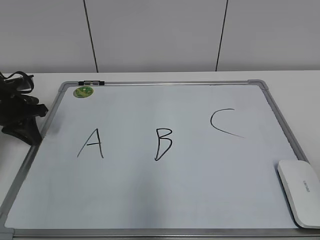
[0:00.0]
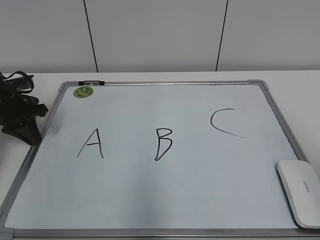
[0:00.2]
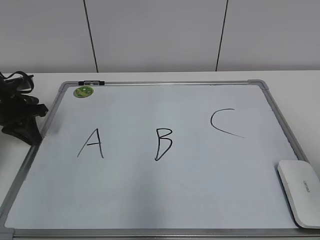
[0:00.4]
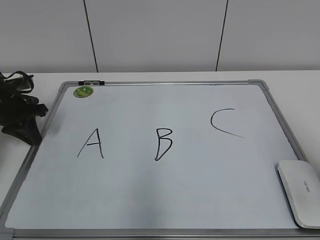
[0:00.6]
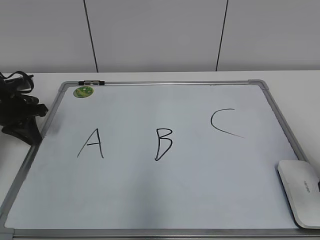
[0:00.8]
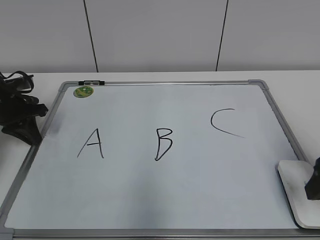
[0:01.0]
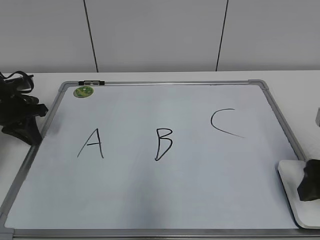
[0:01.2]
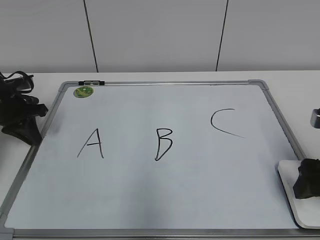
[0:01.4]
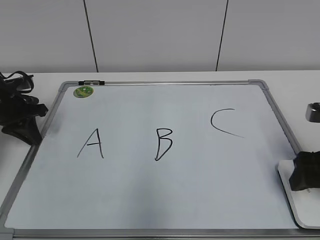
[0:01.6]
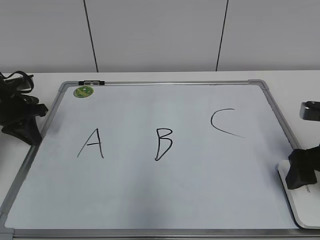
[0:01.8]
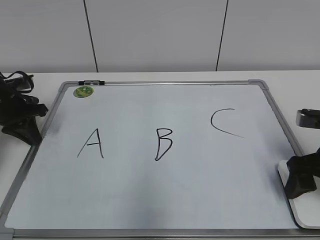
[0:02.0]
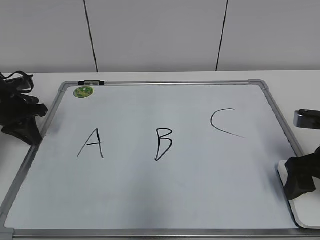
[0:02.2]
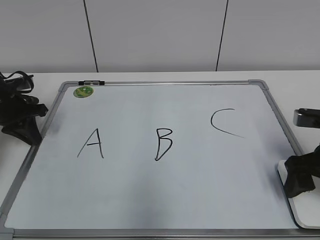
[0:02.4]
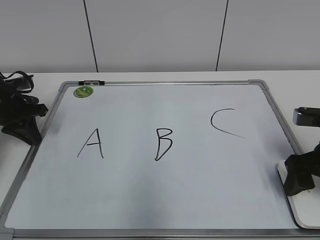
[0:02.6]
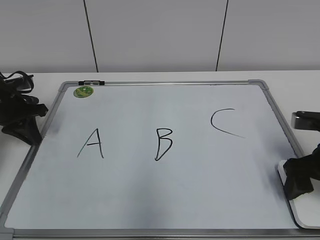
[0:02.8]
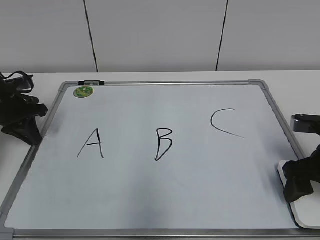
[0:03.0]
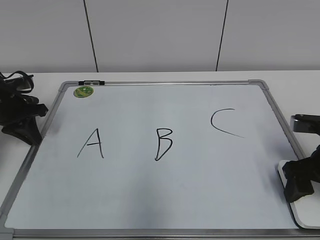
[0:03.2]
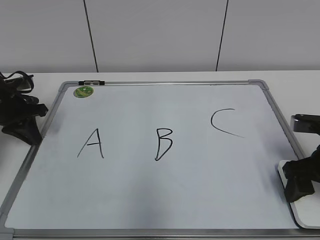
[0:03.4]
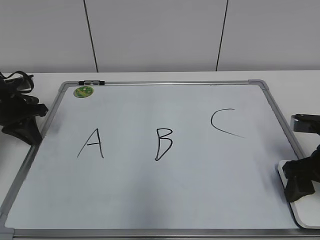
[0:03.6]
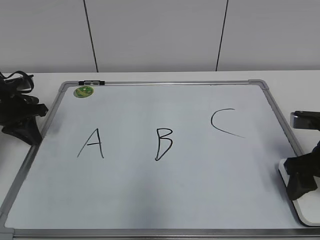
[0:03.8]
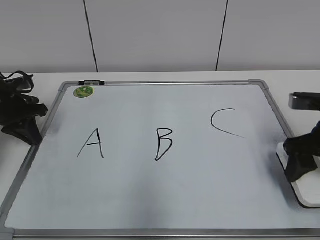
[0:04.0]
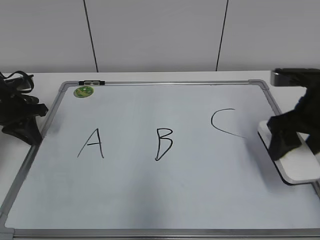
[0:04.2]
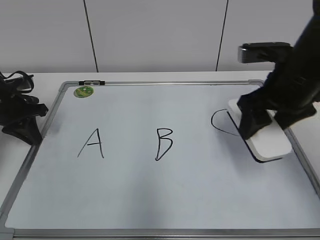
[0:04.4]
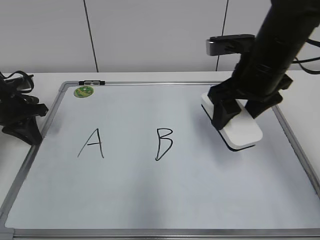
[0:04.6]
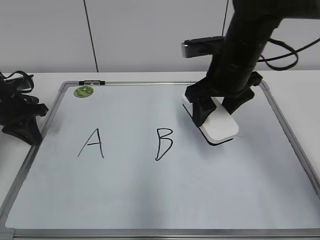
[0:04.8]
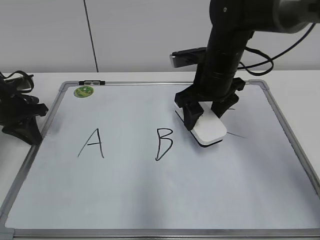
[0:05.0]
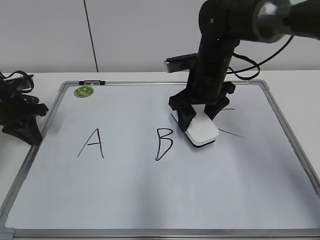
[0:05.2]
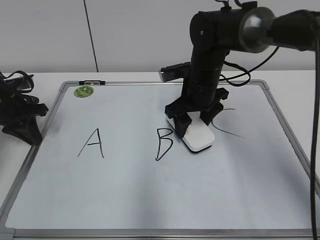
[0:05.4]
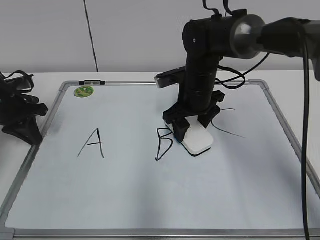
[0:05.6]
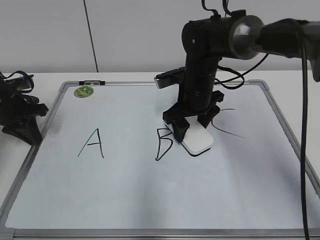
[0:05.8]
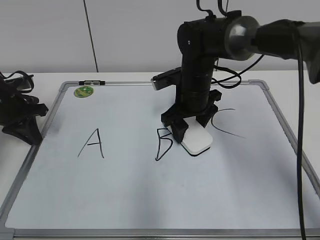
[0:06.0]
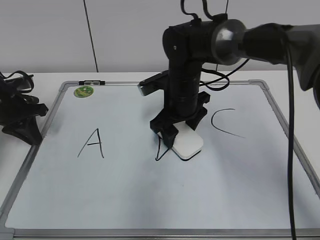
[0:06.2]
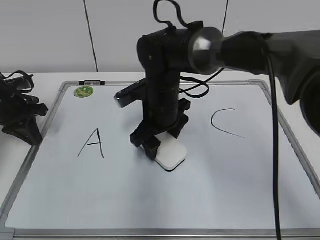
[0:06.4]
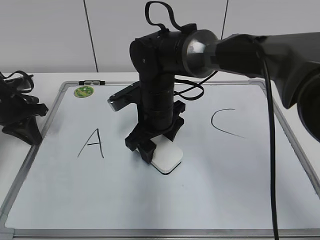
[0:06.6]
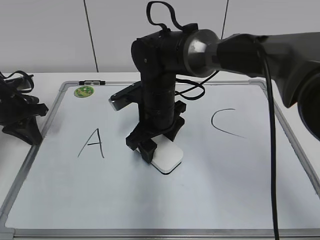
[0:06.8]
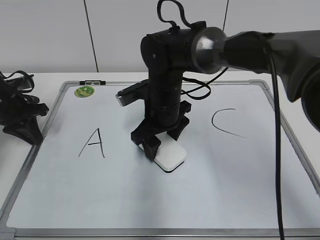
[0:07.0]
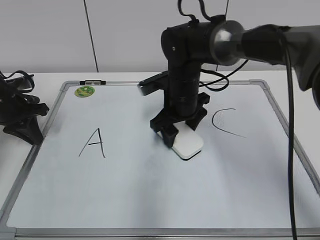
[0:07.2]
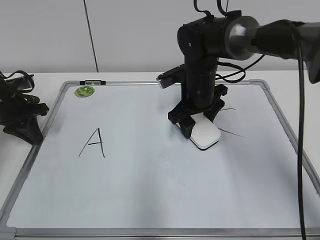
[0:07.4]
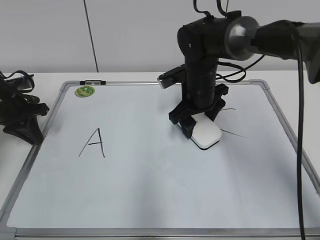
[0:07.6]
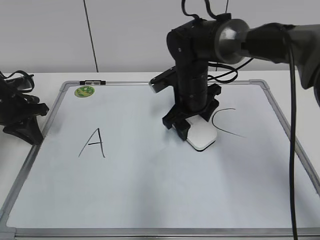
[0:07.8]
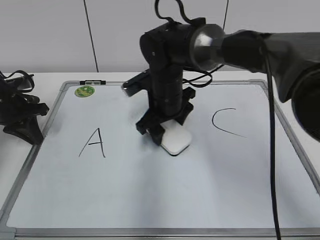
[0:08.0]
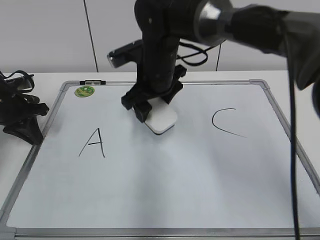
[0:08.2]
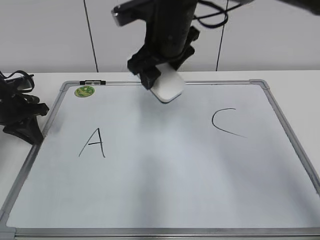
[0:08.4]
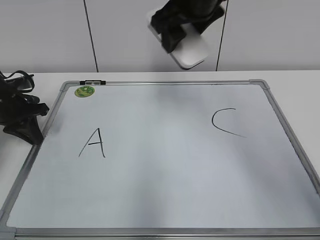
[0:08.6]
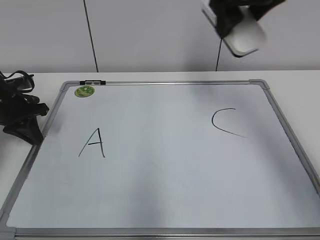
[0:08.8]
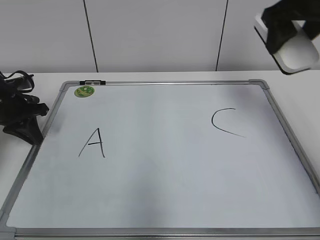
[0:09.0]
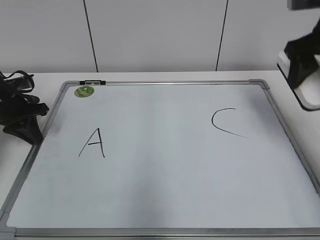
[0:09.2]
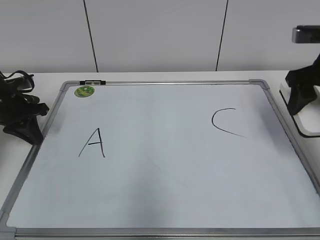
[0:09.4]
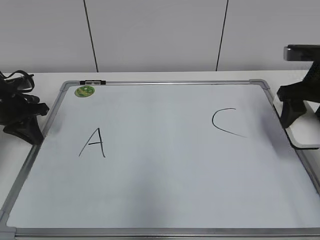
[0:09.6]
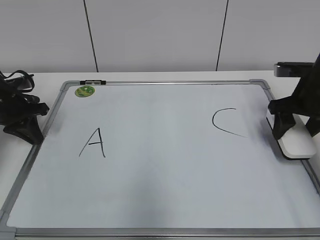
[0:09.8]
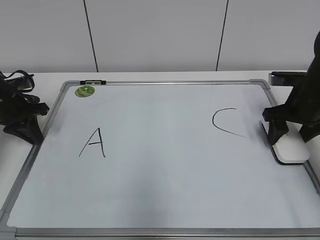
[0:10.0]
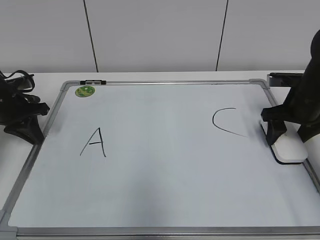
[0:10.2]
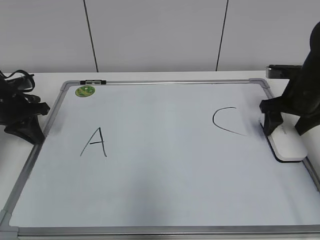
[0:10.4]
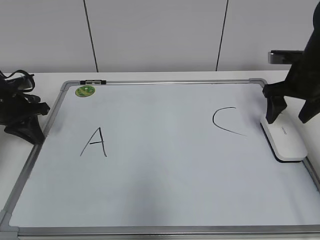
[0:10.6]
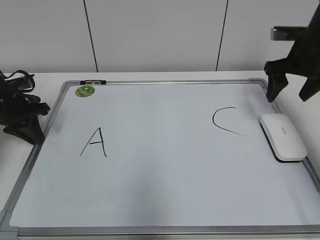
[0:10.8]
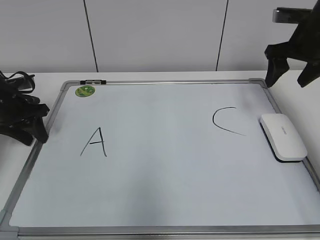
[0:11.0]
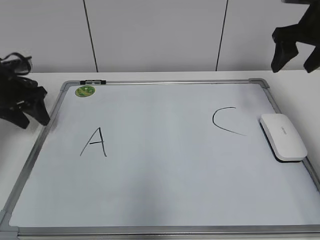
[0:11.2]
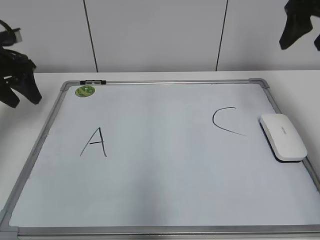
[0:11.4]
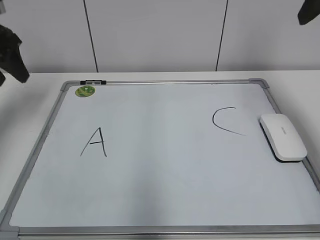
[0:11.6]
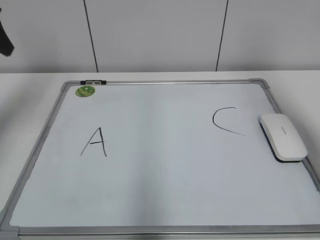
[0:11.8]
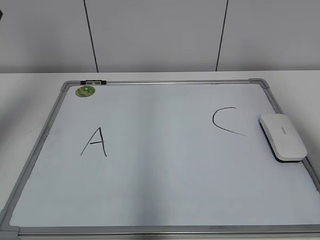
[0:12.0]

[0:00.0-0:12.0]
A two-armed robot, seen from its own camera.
Task of the whole recording: pick up the eraser on the blackboard and erase the letter "B".
Step, 0:00.0 to 0:03.4: Grab the eraser with your right hand.
Step, 0:03.6 to 0:07.8: Erase the letter B with your right hand.
Step, 0:08.0 to 0:10.4: Put down the eraser with your right hand.
0:00.0 to 0:01.6: The right gripper is displaced forward and downward by approximately 25 cm, and opens.
0:01.6 to 0:03.0: The right gripper closes its fingers.
0:03.0 to 0:04.4: The right gripper travels upward, to the left and forward by about 15 cm, and closes up.
0:04.4 to 0:06.0: The right gripper moves to the left, forward and downward, some 20 cm.
0:06.0 to 0:07.6: The right gripper goes to the left and returns, some 5 cm each way.
0:07.6 to 0:09.0: The right gripper travels upward and to the right by about 25 cm.
0:09.0 to 0:10.4: The right gripper goes roughly 20 cm downward, and opens up.
0:10.4 to 0:12.0: The right gripper goes roughly 30 cm upward and backward; the left gripper travels upward by approximately 30 cm, and opens up.

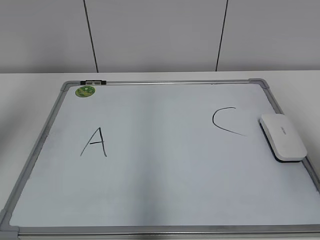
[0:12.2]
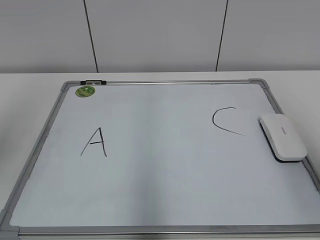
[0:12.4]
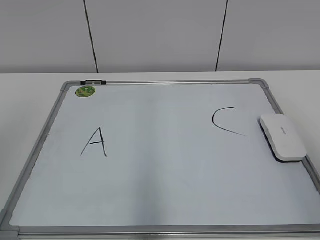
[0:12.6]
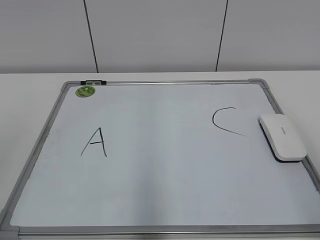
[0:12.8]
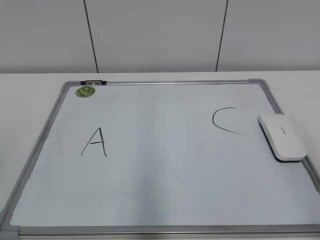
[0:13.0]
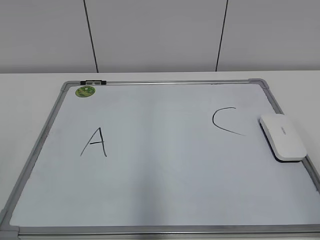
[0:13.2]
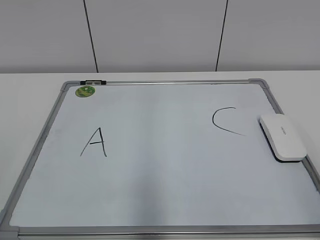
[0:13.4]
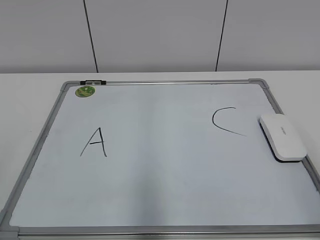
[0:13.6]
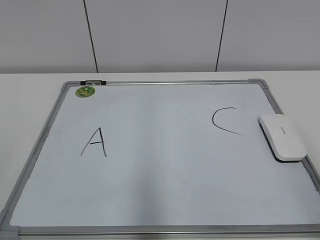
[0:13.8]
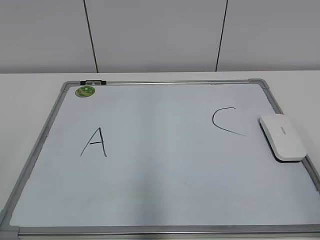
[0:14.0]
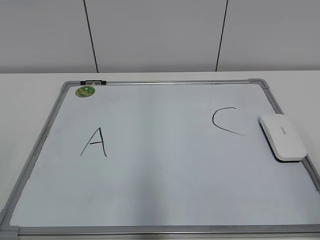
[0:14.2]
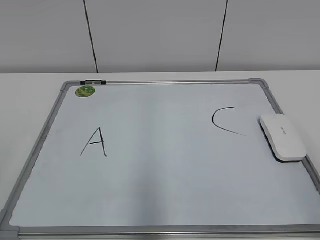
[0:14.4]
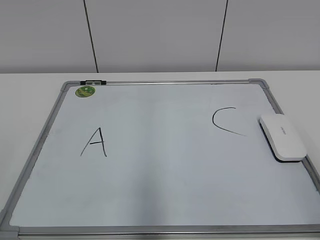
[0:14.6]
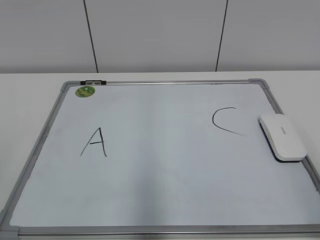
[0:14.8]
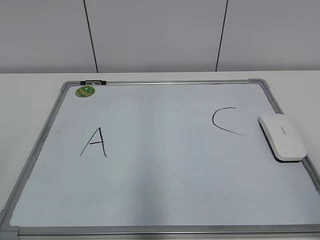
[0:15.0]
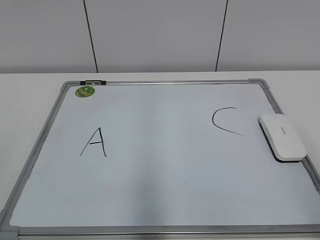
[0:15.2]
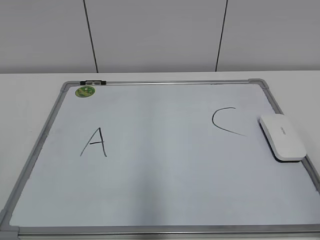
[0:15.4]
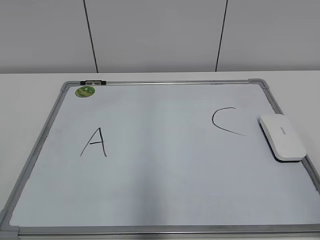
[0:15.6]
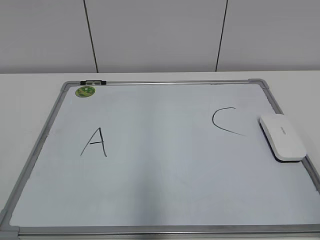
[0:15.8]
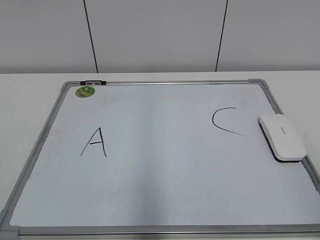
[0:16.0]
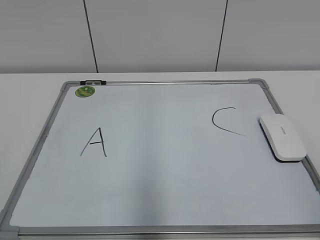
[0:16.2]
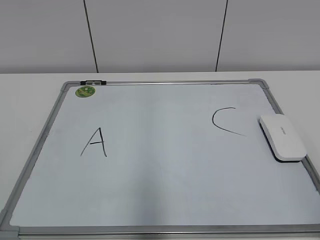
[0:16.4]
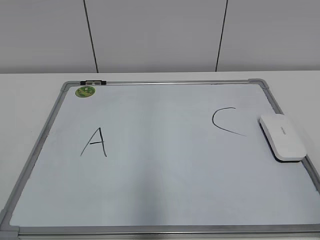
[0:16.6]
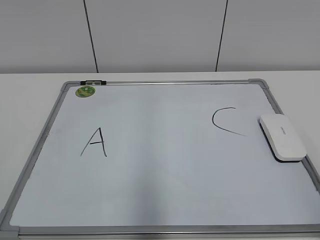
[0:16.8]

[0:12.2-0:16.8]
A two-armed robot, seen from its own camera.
Task of the whole recording: pick up the eraser on the blackboard and erase the letter "B".
0:12.2 to 0:13.8: The two grippers go about 20 cm backward and downward.

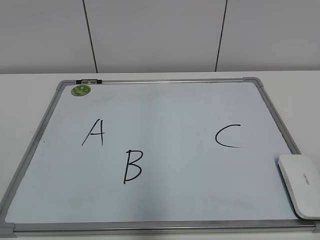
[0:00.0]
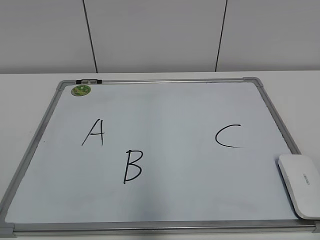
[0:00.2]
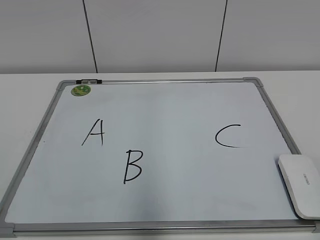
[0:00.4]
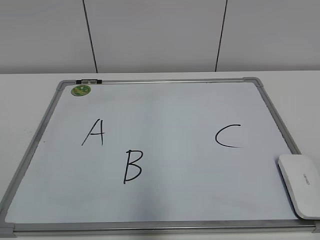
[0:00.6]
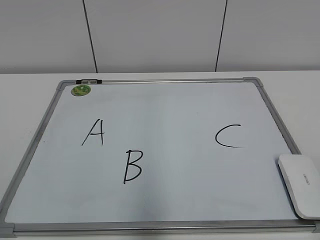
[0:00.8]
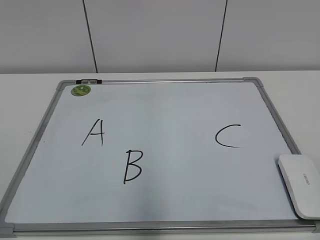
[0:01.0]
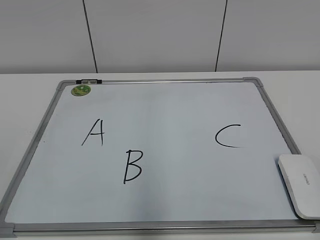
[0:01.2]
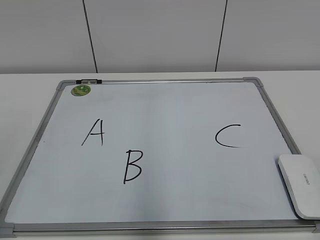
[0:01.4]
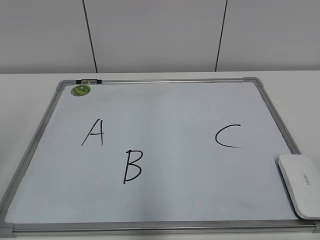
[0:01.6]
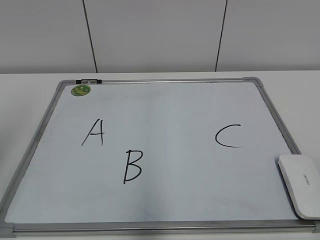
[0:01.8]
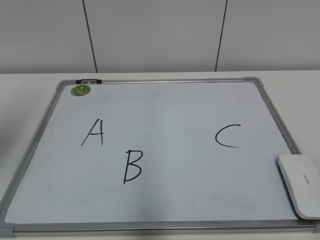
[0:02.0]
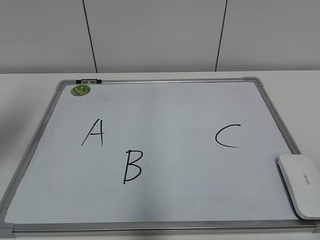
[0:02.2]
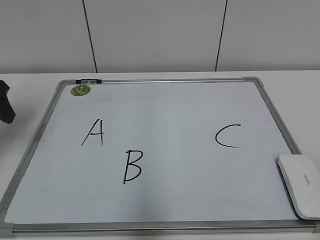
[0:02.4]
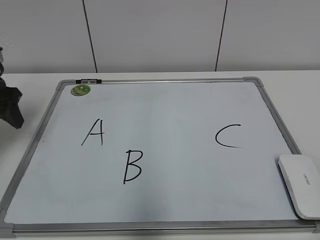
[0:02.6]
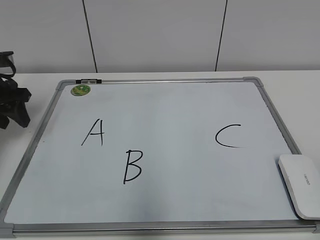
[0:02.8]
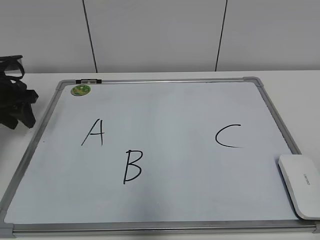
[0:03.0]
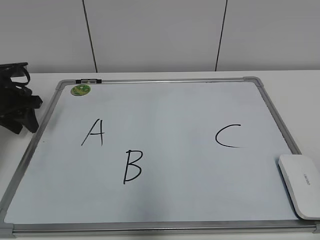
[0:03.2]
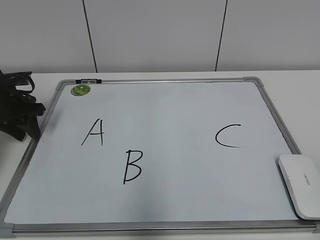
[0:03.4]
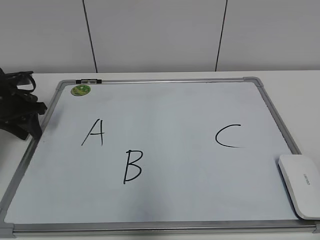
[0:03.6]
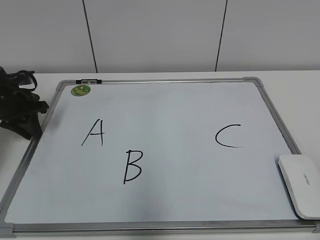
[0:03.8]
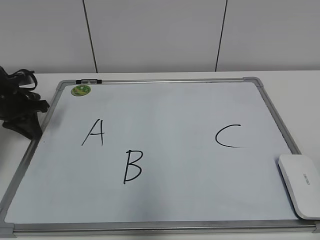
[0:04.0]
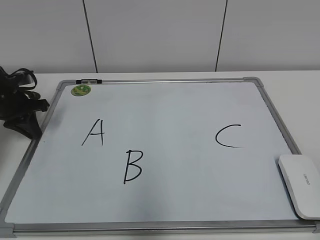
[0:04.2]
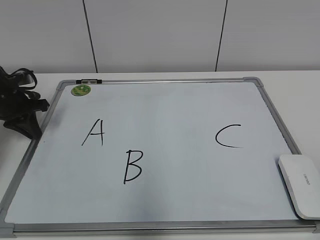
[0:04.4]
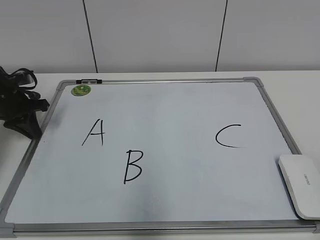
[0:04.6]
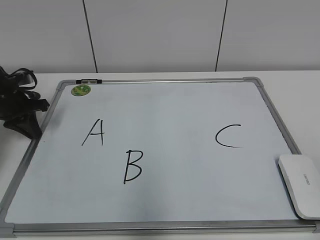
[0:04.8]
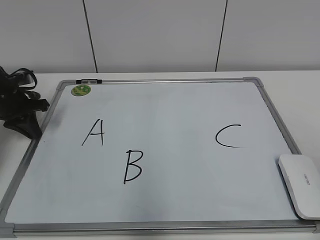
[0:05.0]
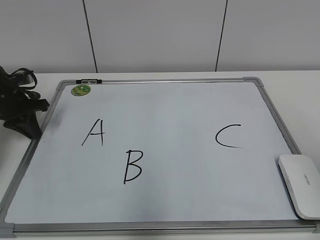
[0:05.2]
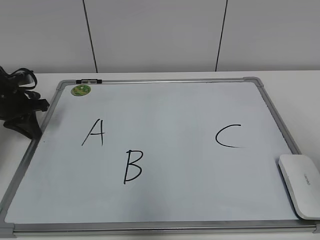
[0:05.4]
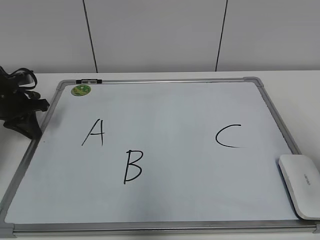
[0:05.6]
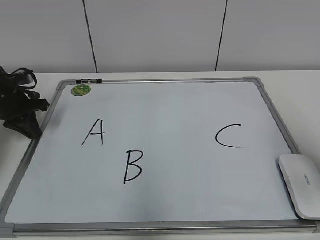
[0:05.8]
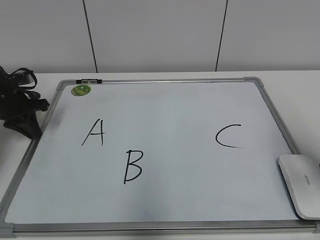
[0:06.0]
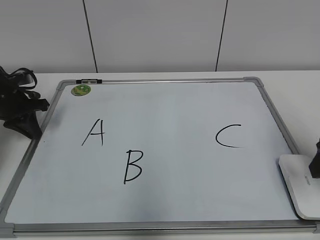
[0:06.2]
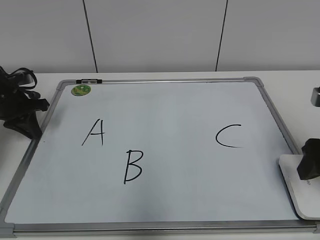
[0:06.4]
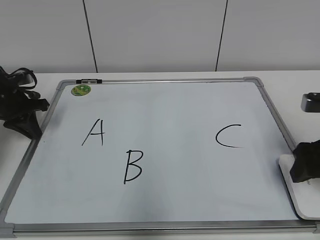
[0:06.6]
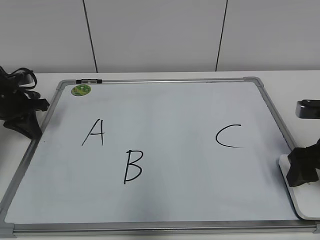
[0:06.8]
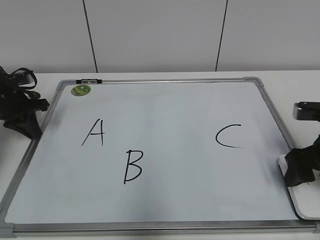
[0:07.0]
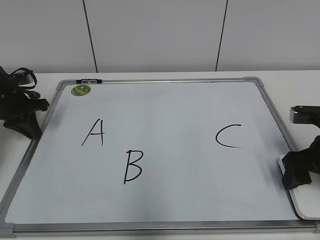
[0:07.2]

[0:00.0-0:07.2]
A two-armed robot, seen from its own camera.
Task of the whole recording: pick up the eraser on the blackboard and erase the letter "B".
Step, 0:00.0 to 0:05.0: Hold the drawing board steady with your left hand.
0:01.4 to 0:02.8: The left gripper goes about 35 cm forward.
0:02.8 to 0:04.4: The left gripper shifts approximately 5 cm downward, and closes.
0:04.4 to 0:05.8: The right gripper goes about 20 cm forward.
0:05.8 to 0:07.2: The right gripper shifts some 15 cm downward and forward.
